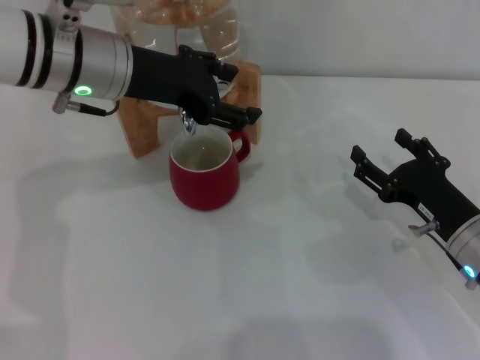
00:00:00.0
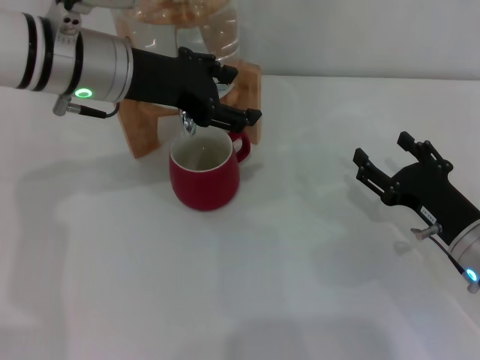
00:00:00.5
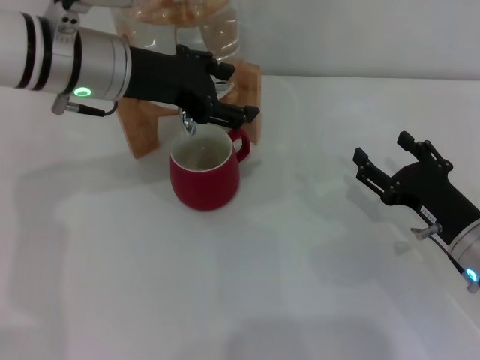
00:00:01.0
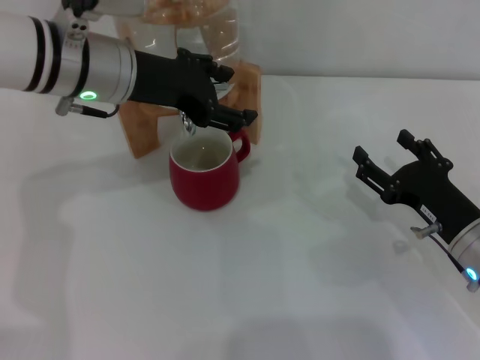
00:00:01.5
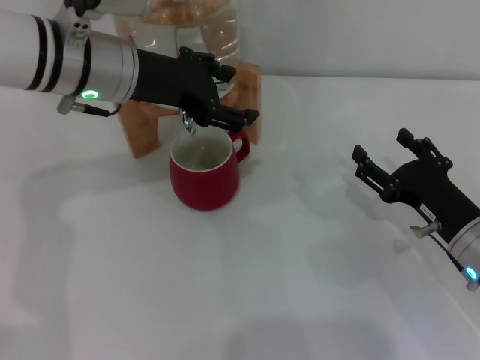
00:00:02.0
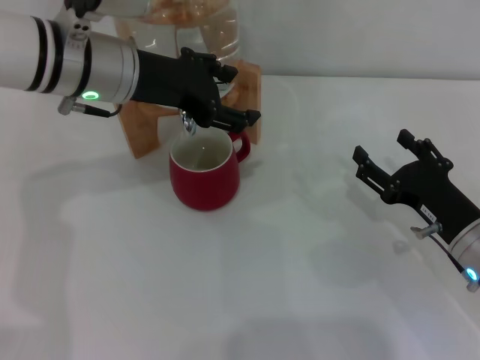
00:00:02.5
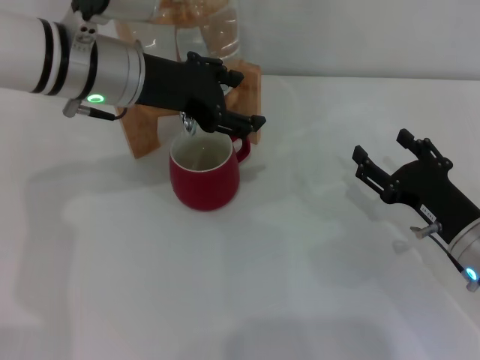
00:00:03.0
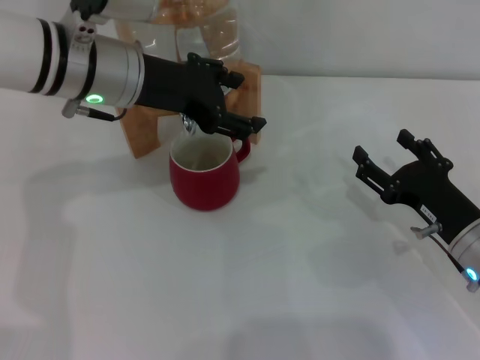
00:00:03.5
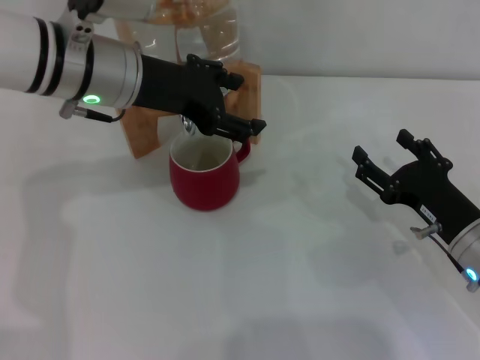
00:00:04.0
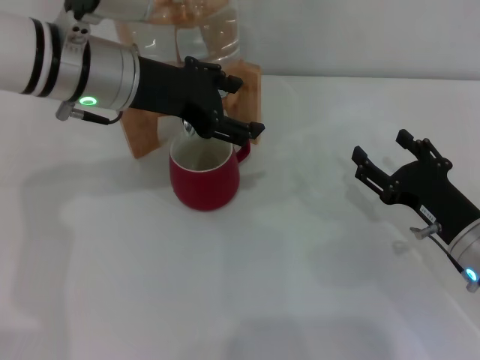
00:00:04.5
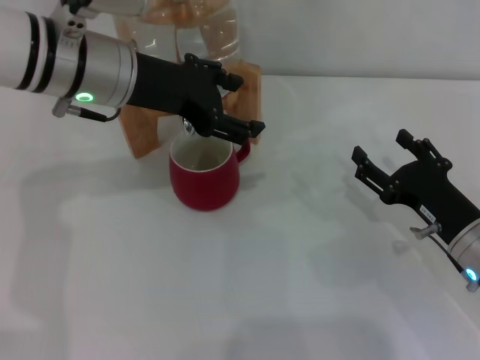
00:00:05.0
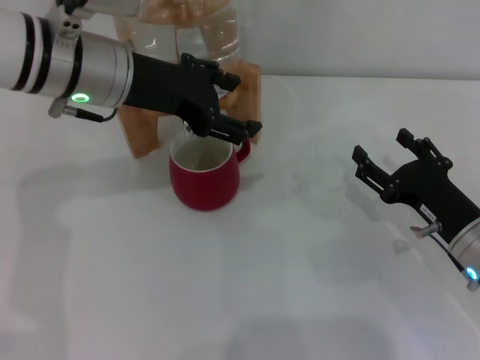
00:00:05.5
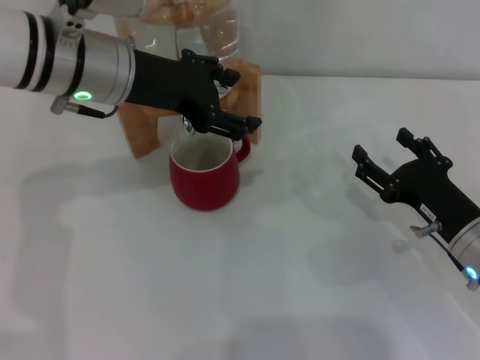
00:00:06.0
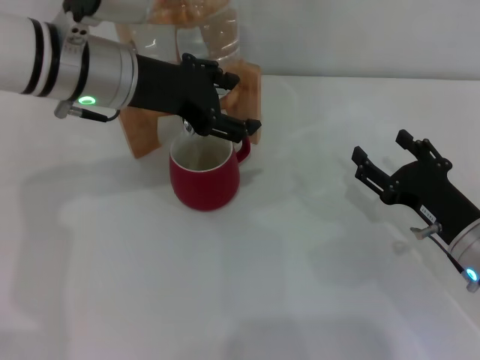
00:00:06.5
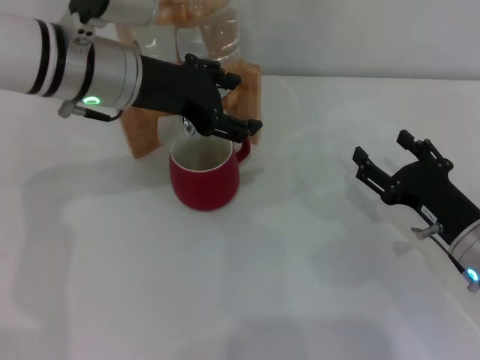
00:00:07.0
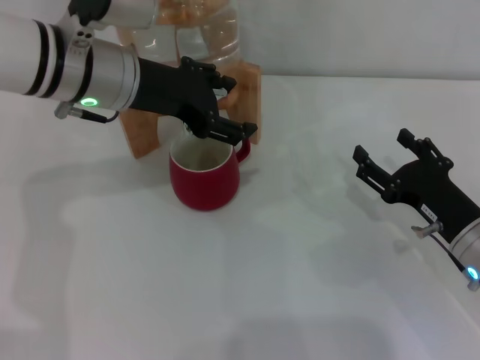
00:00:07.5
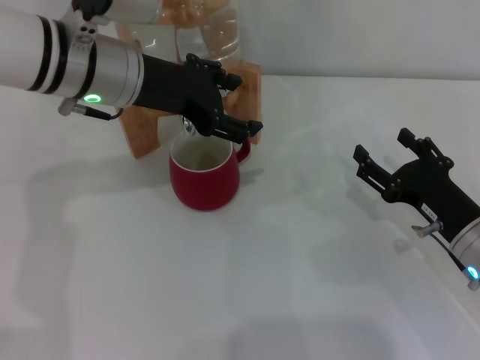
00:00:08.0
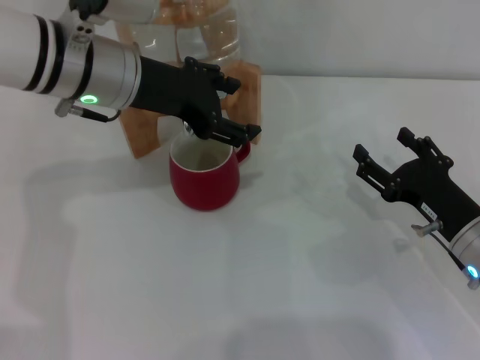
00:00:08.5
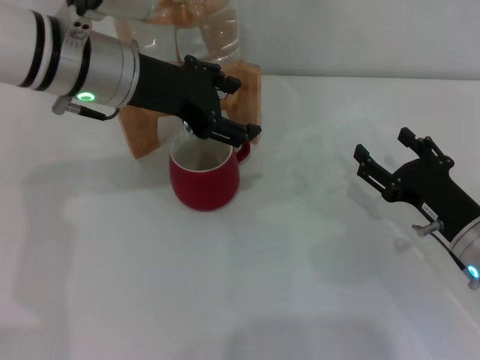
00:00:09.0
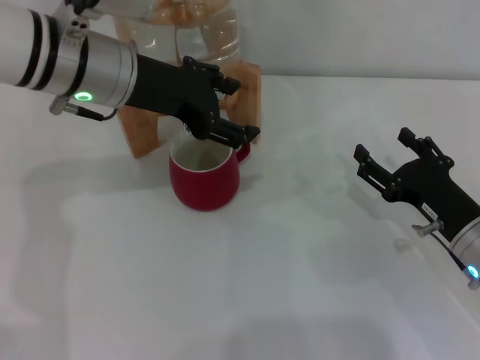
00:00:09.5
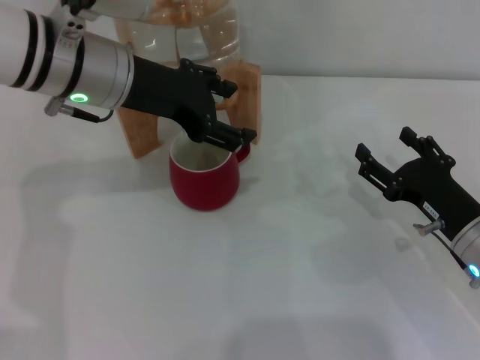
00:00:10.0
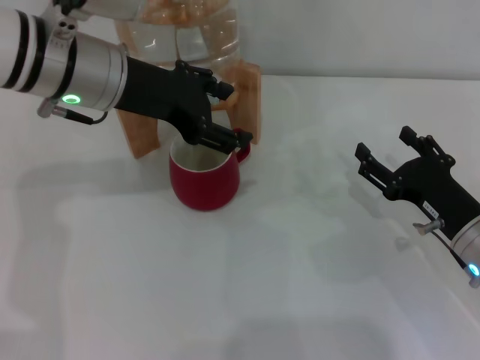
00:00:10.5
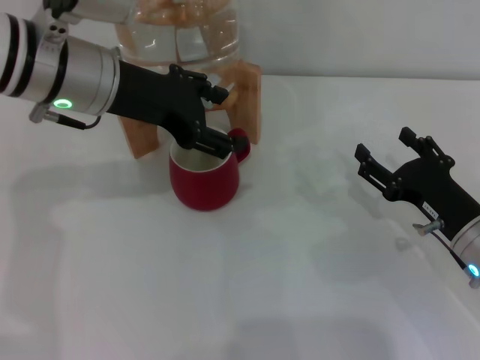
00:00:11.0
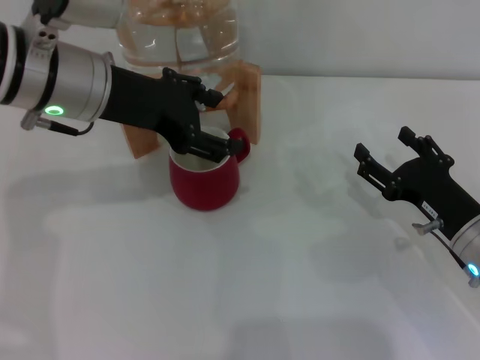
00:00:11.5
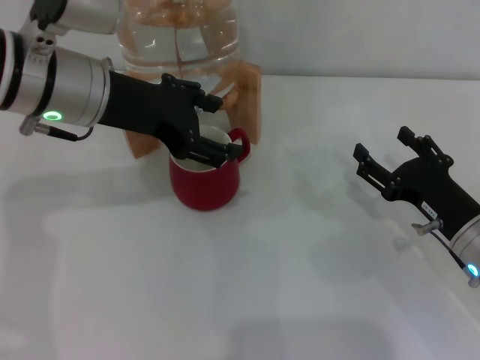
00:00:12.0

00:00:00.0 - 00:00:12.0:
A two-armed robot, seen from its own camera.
Task of the whole recording: the right gripper pick up the red cup and place it horizontally under the faucet, the left gripper turn on the faucet to fill the cup, and then turn off the faucet.
00:00:00.0 - 00:00:06.0: Both grippers stay about where they are.
00:00:06.0 - 00:00:10.0: The two grippers keep their place.
00:00:10.0 - 00:00:12.0: The grippers make only small movements.

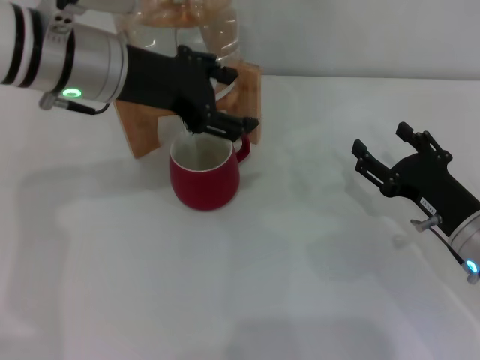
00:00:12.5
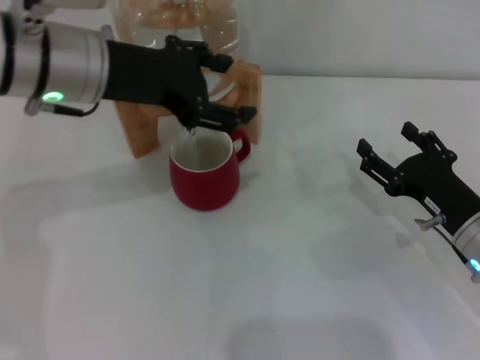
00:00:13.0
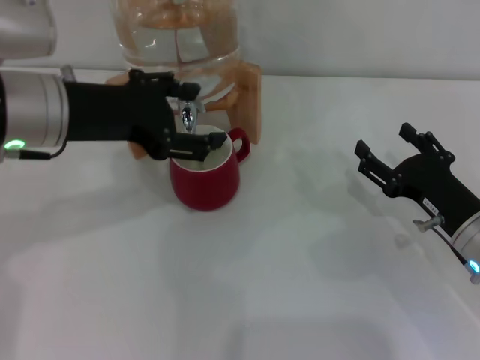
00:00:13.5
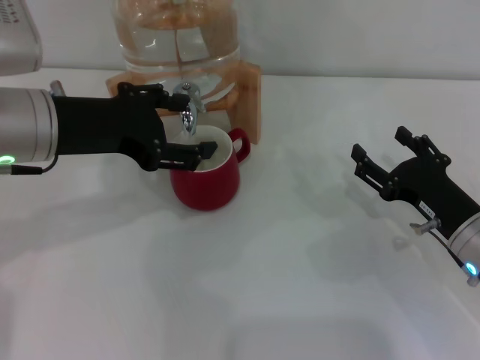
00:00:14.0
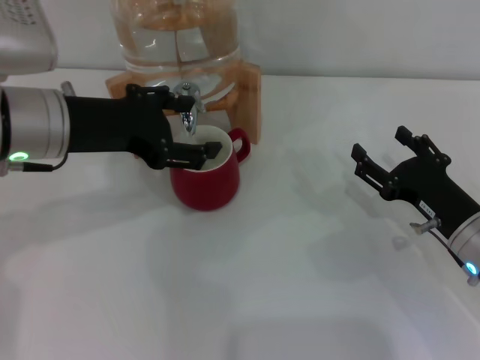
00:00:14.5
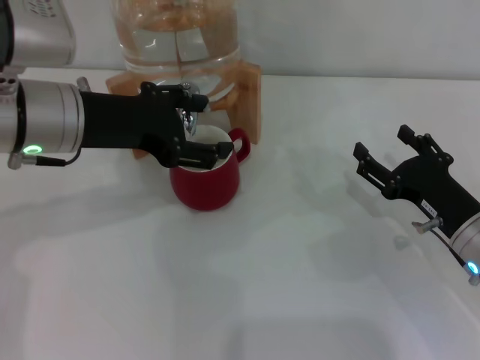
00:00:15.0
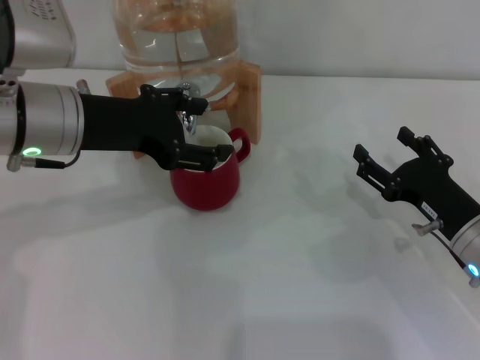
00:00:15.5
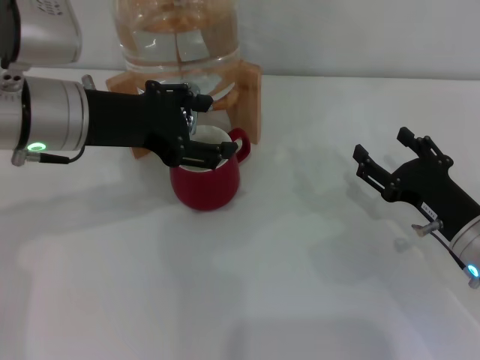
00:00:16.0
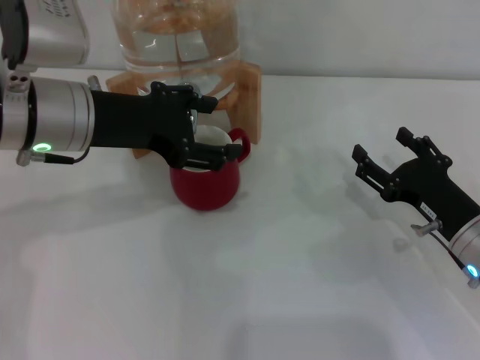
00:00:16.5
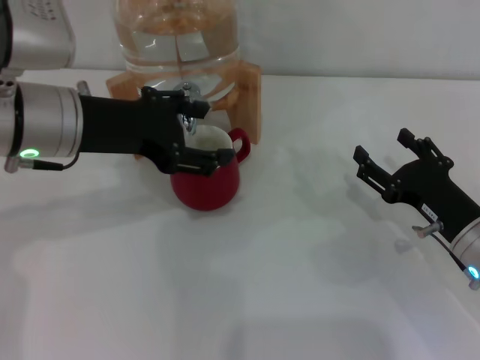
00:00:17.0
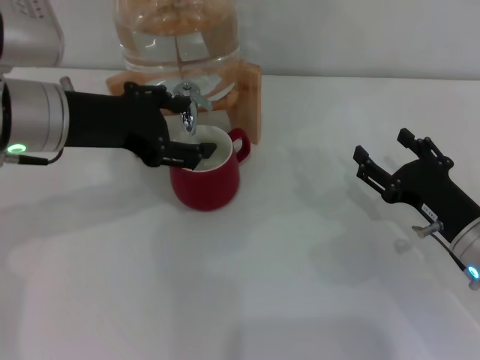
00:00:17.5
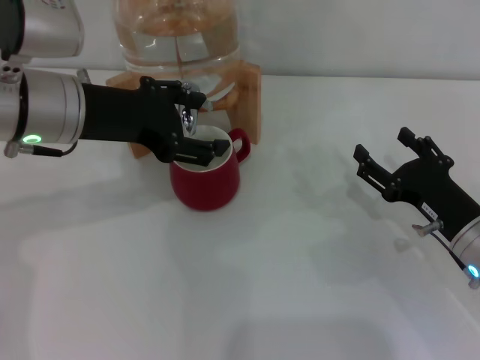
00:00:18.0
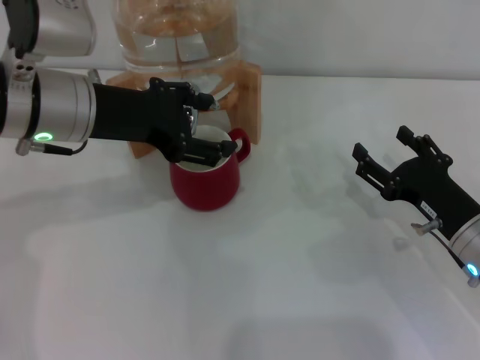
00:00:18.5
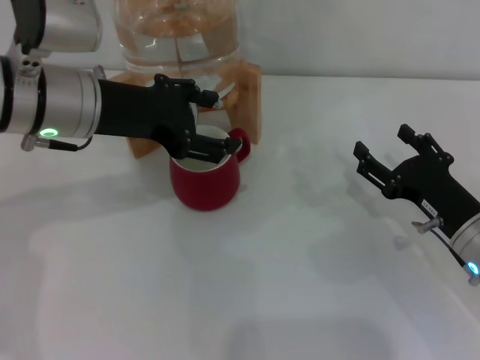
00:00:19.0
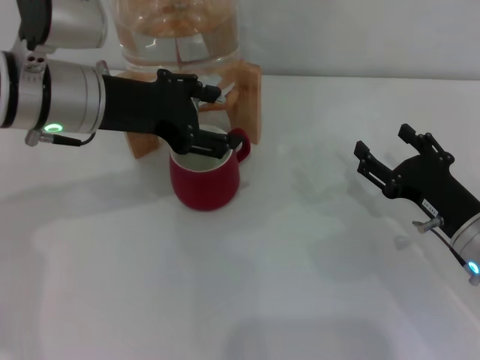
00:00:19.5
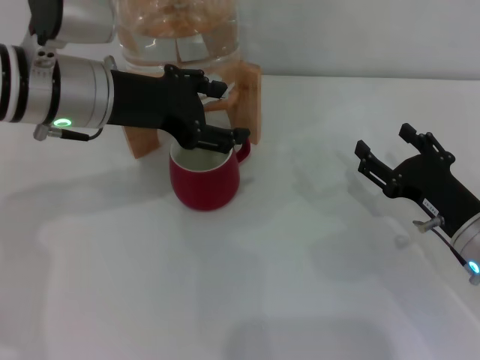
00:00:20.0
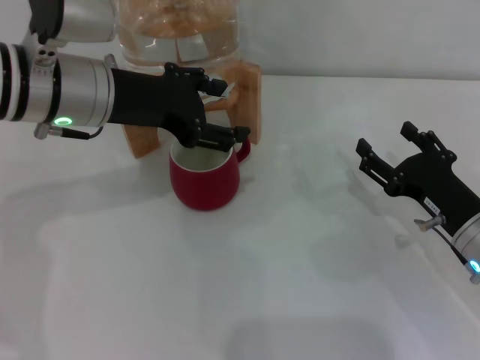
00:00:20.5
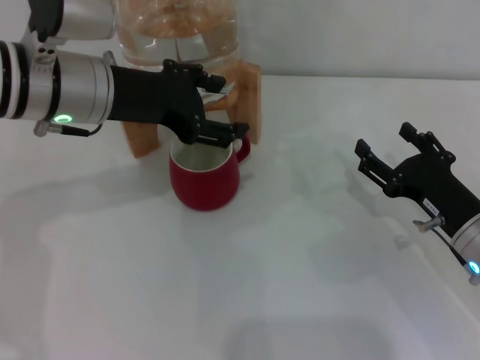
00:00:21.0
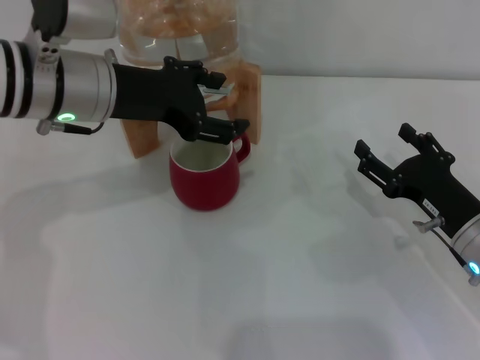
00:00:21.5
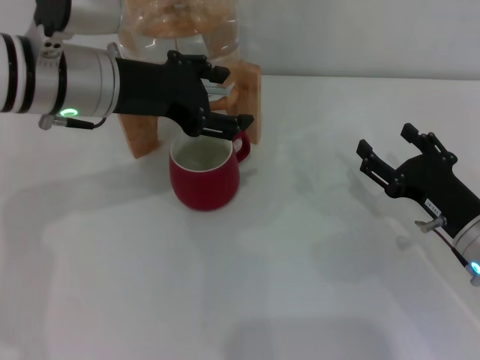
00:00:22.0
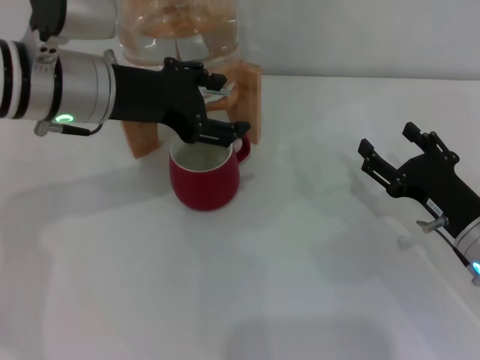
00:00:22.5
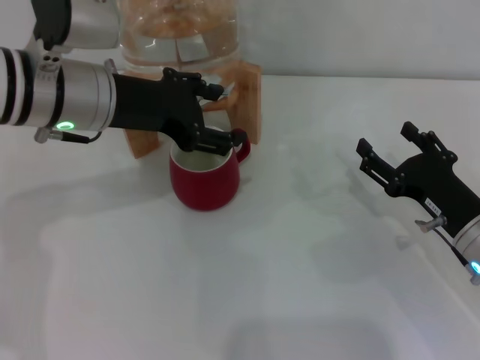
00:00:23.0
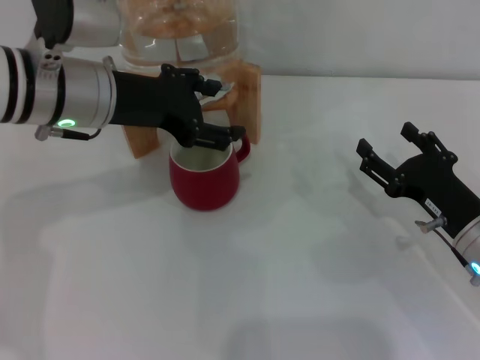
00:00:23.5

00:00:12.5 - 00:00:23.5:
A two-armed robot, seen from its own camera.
Task of the whole recording: the right gripper pick up the red cup and place it horizontally under the faucet, the left gripper turn on the faucet to fill the cup, and then turn off the faucet.
00:00:12.5 - 00:00:14.5: The left gripper changes place by about 5 cm.
00:00:14.5 - 00:00:20.0: The grippers stay close to where they were, moving slightly.
00:00:20.0 - 00:00:23.5: Both grippers stay about where they are.

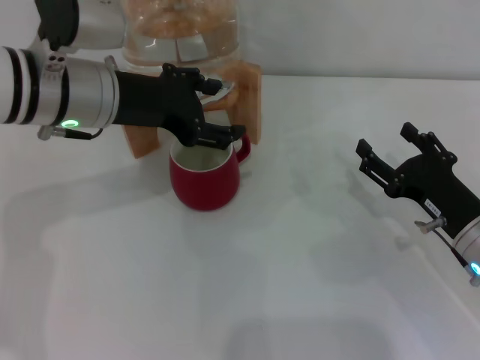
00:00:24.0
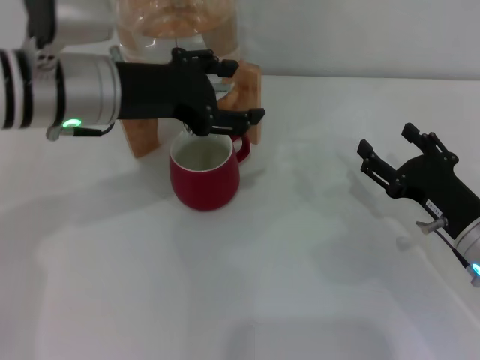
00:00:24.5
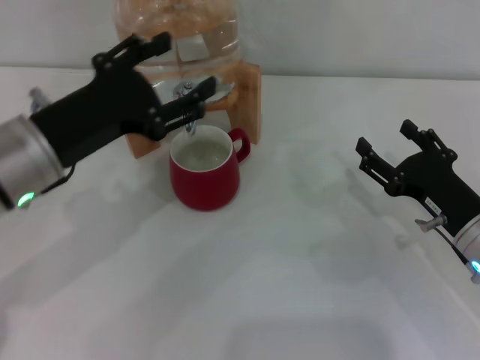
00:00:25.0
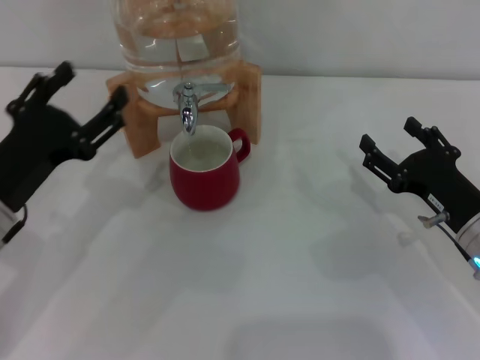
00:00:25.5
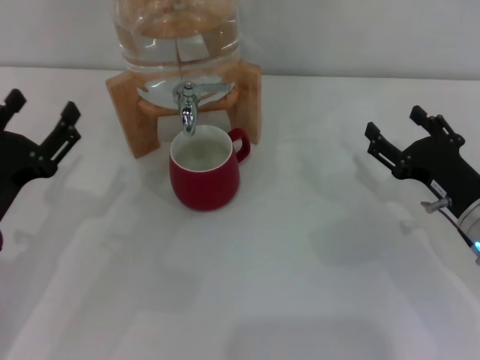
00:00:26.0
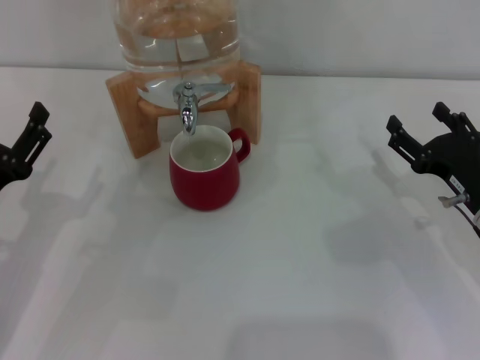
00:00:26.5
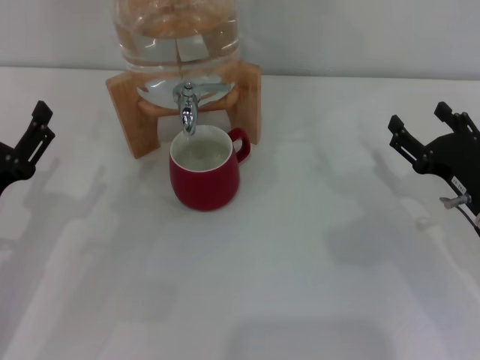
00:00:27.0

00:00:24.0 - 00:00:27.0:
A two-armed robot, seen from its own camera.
Task of the whole recording: the right gripper pick up the red cup and place it horizontally under the faucet, the left gripper turn on the faucet to fill the cup, and then turn off the faucet.
00:00:24.0 - 00:00:25.5: The left gripper goes some 15 cm backward, downward and to the left.
00:00:25.5 - 00:00:27.0: The left gripper ends up approximately 5 cm from where it was.
